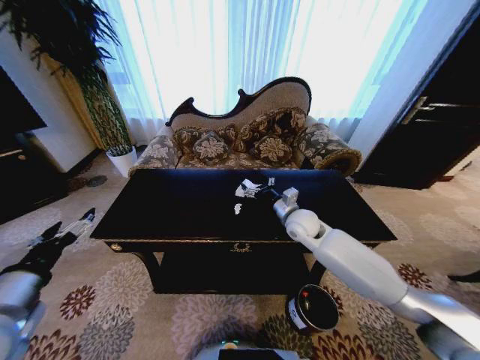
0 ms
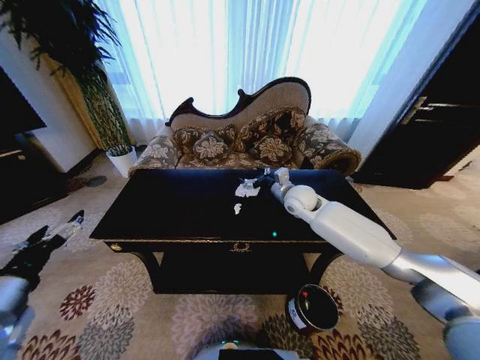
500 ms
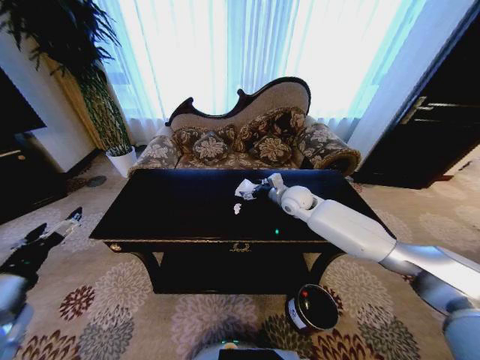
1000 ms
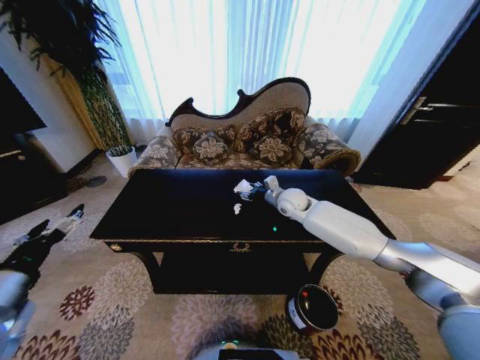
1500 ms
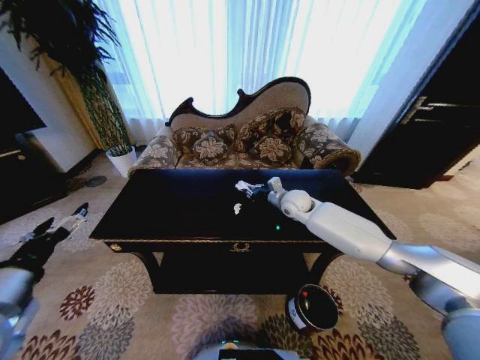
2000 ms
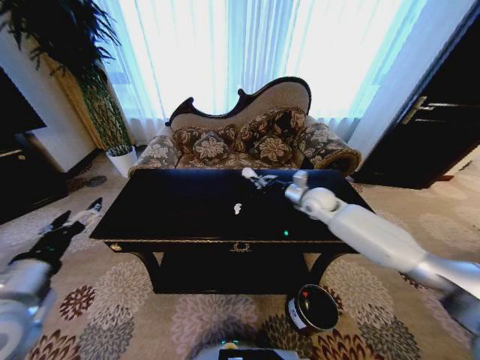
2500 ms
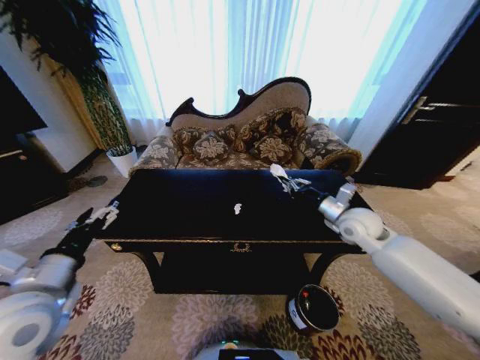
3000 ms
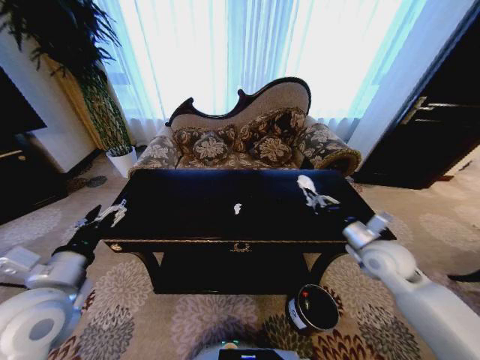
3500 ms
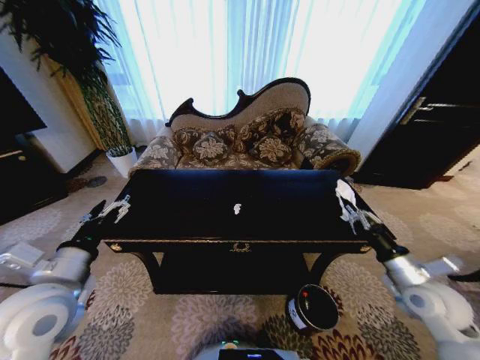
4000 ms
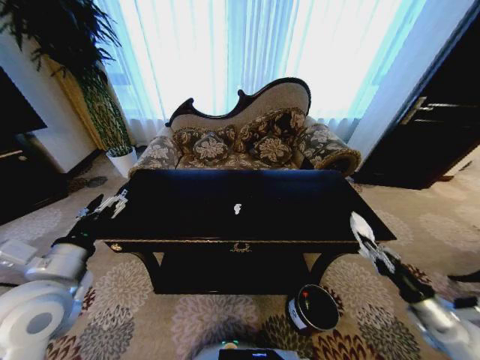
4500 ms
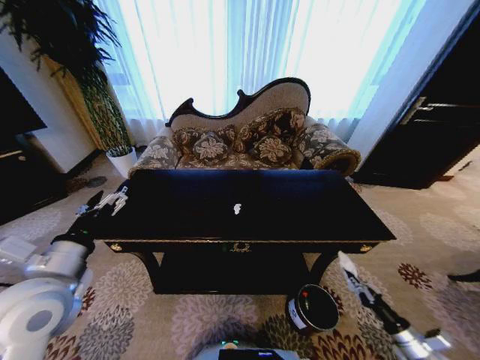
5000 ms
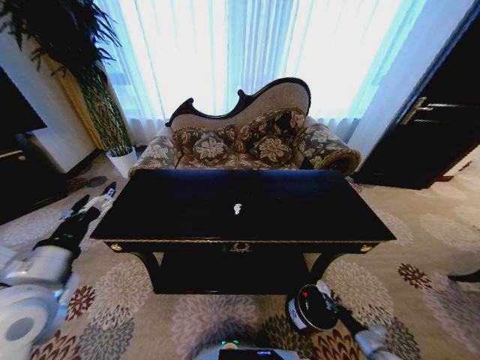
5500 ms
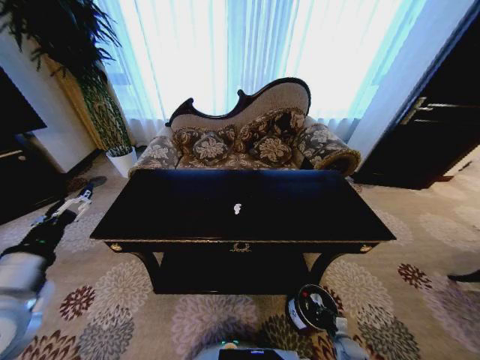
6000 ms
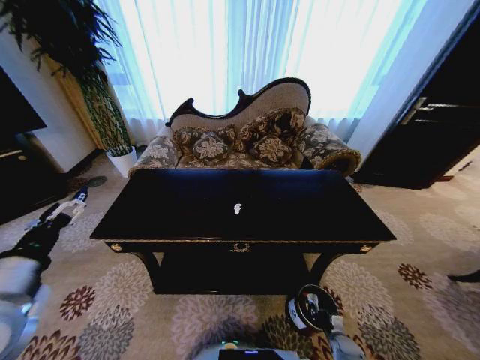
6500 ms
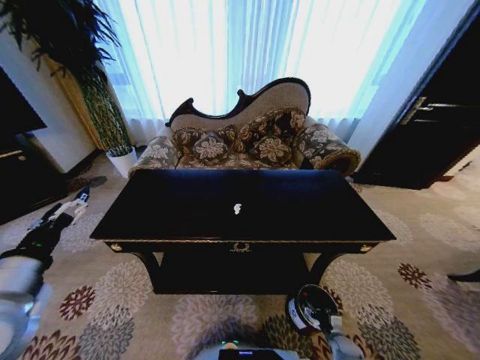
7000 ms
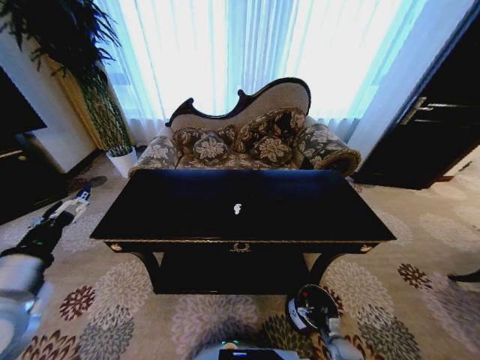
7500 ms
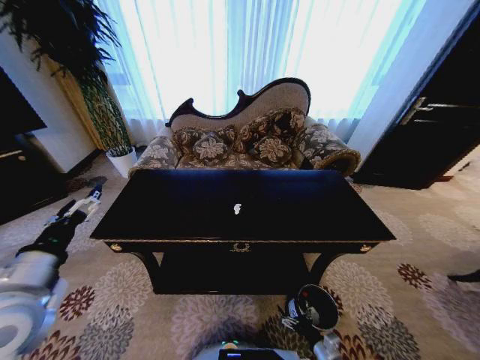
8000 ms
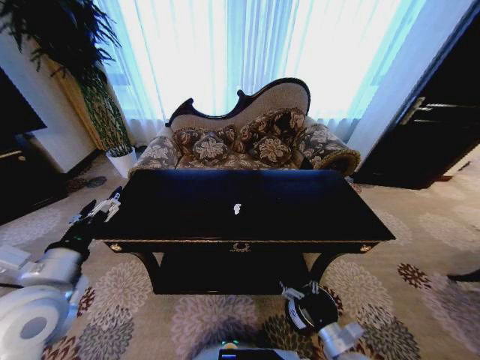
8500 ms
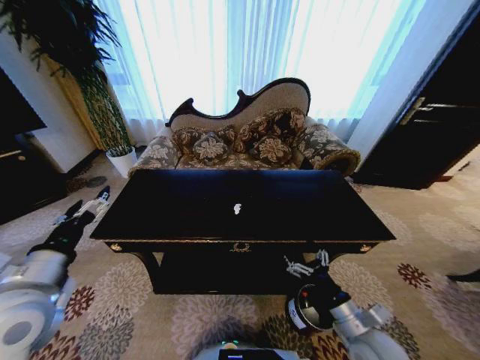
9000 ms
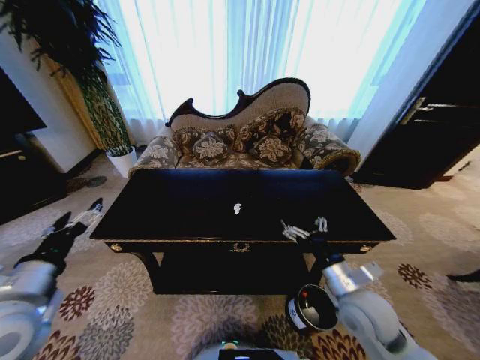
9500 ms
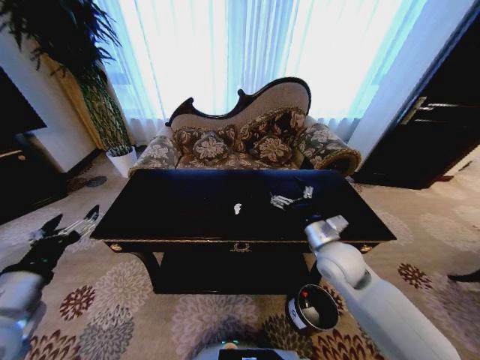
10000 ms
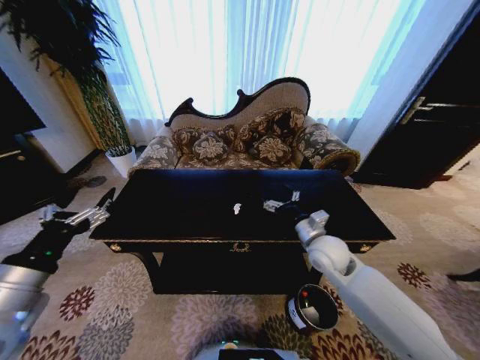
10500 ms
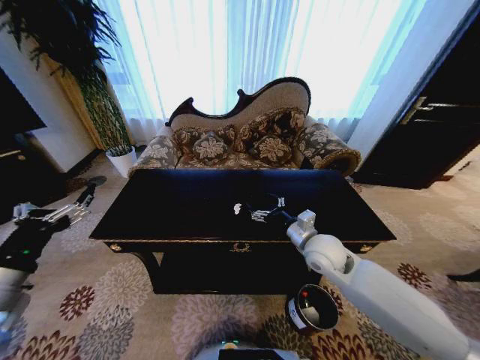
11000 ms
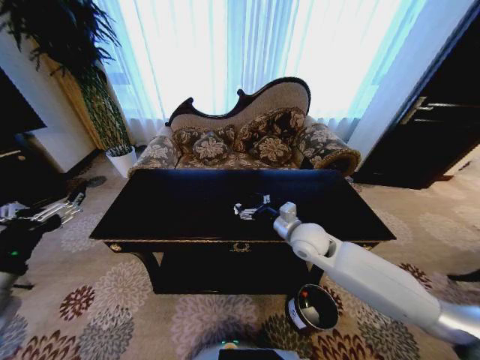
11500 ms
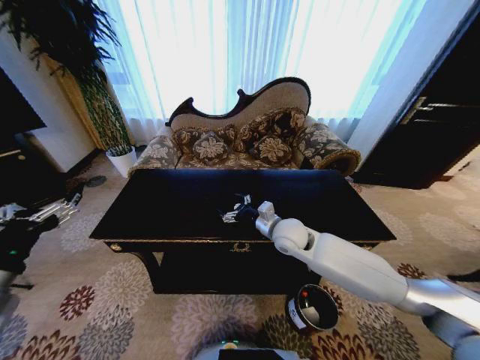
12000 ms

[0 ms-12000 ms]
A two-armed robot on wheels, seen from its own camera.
Task of the whole recording: Move to the front of the table and place the trash on the table into the trash bin.
0 ms to 2000 ms: The right gripper goes about 10 cm forward, and closes.
2000 ms to 4000 ms: The left gripper goes approximately 5 cm to the right. The right gripper travels backward and to the right by approximately 35 cm.
4000 ms to 6000 ms: The right gripper shifts roughly 40 cm downward; the left gripper shifts by about 5 cm.
6000 ms to 8000 ms: The right gripper moves to the left, upward and backward, approximately 15 cm, and opens up.
8000 ms to 10000 ms: The right gripper is displaced upward and forward by some 40 cm.
10000 ms to 12000 ms: The right gripper moves to the left and forward, about 15 cm.

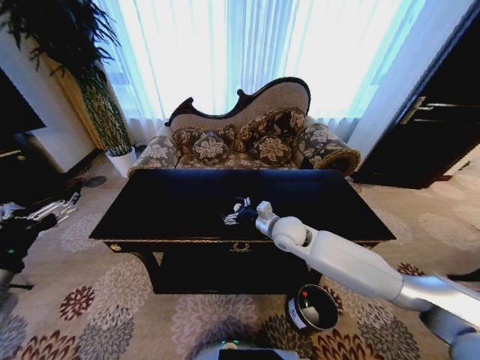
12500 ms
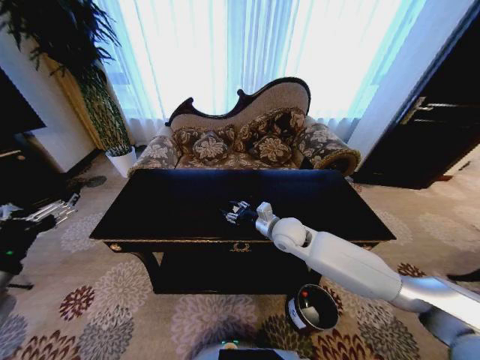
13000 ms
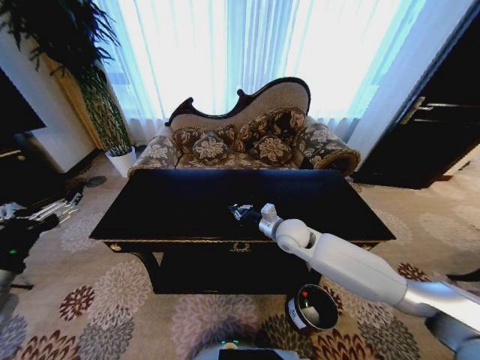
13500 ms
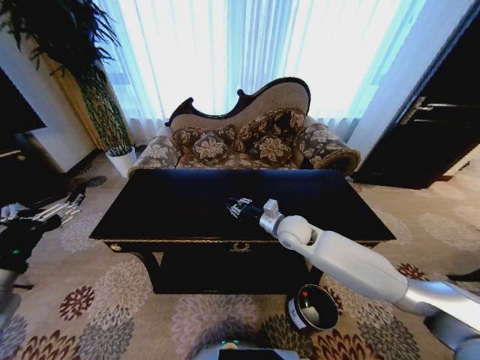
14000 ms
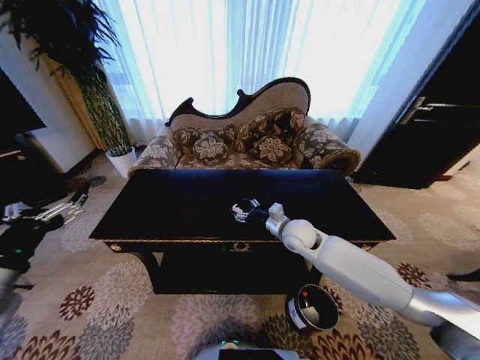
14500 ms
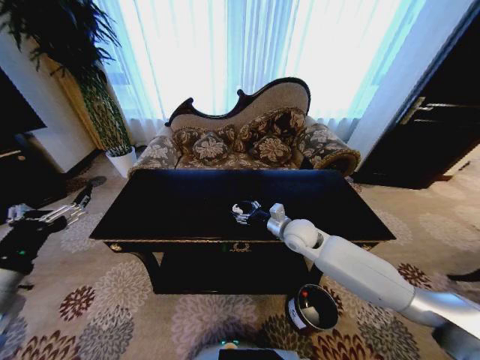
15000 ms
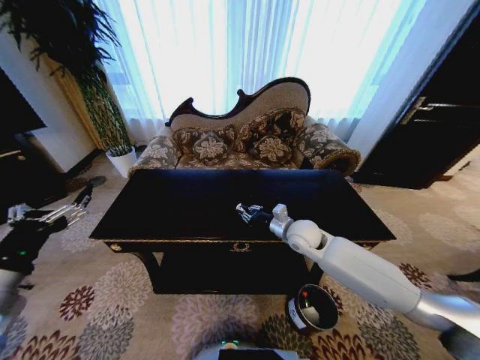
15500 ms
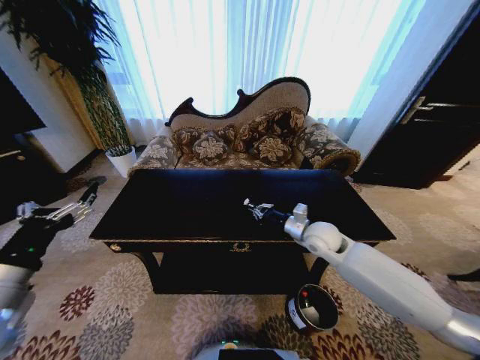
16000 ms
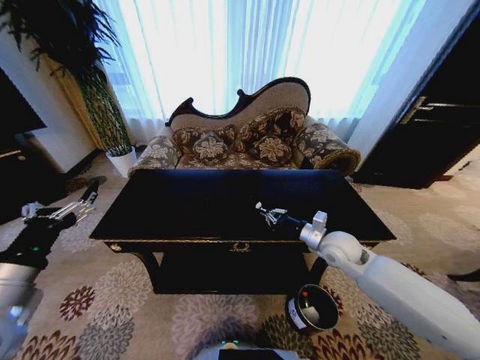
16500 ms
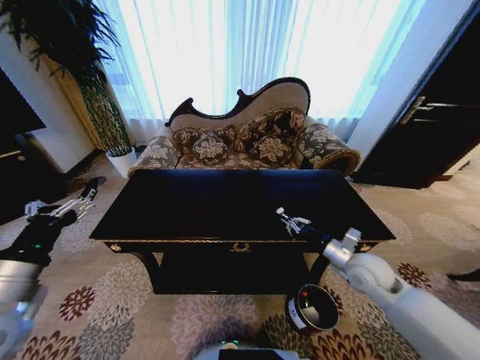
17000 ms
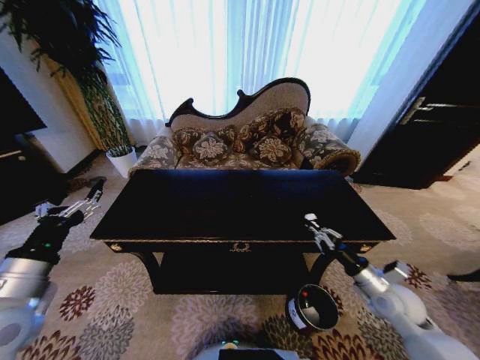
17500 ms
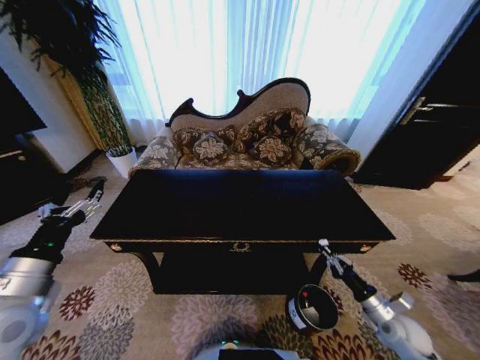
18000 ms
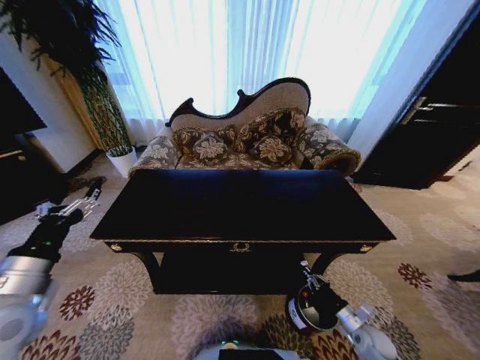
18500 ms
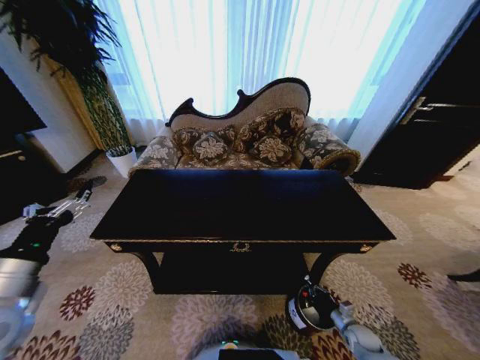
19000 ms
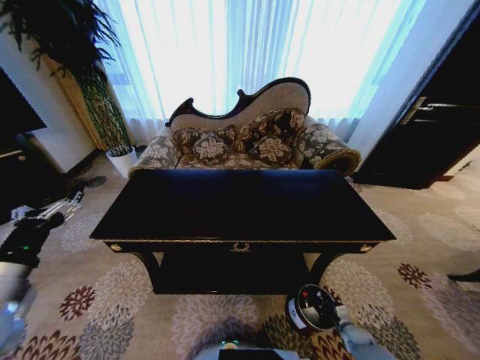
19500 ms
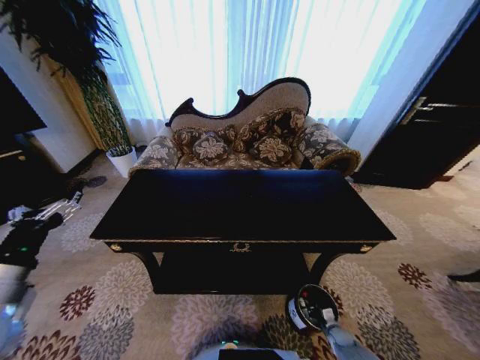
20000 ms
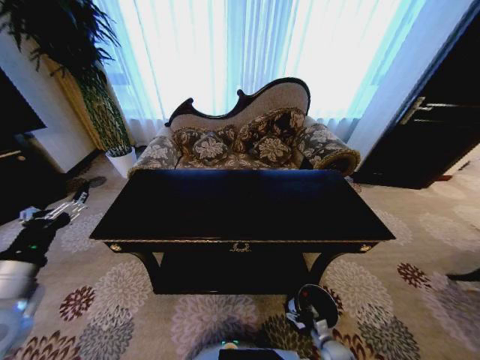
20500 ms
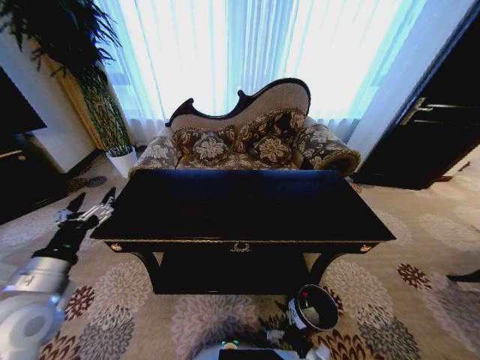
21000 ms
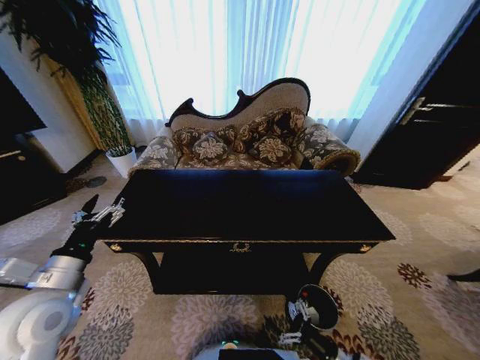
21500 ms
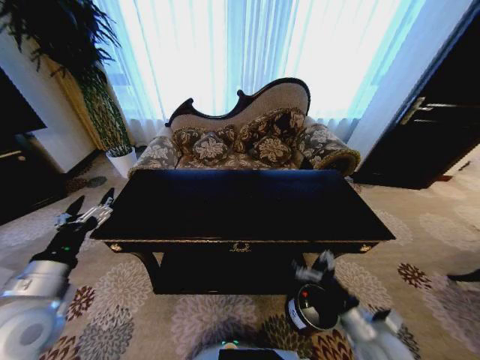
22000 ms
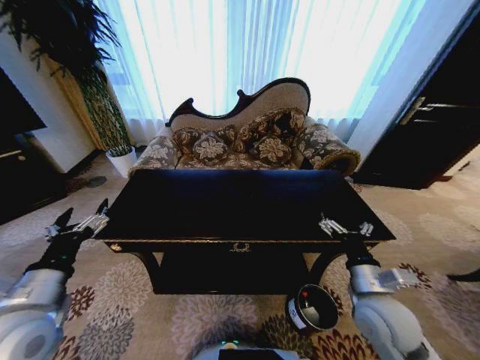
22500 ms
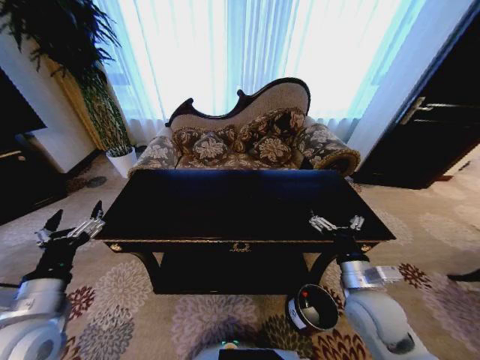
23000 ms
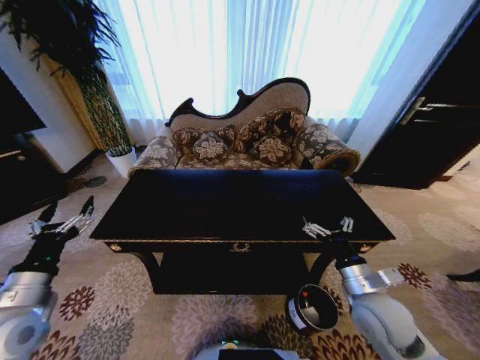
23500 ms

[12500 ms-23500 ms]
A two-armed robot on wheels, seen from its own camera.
Task of the whole recording: Move to the front of the table and place the trash on the table into the trash bin.
12500 ms to 14500 ms: The right gripper closes and opens again.
14500 ms to 16000 ms: The right gripper travels to the right by some 5 cm, and closes up.
16000 ms to 18000 ms: The right gripper is displaced to the right, backward and downward by about 30 cm.
18000 ms to 20000 ms: The right gripper moves downward, roughly 25 cm.
20000 ms to 21500 ms: The left gripper changes place by about 5 cm. The right gripper is displaced upward, backward and to the left by roughly 25 cm, and opens its fingers.
21500 ms to 23500 ms: The right gripper shifts about 25 cm upward and forward. Meanwhile the left gripper changes place by about 5 cm.

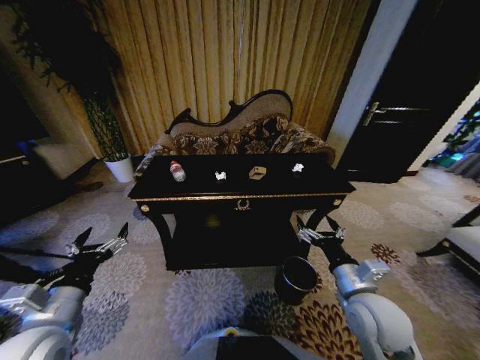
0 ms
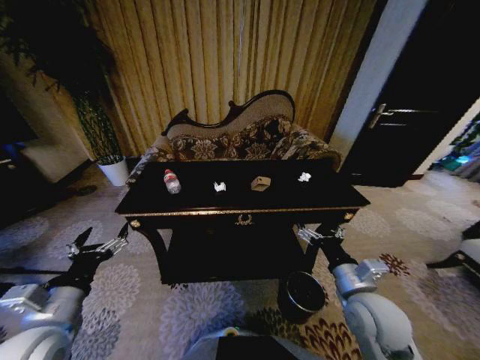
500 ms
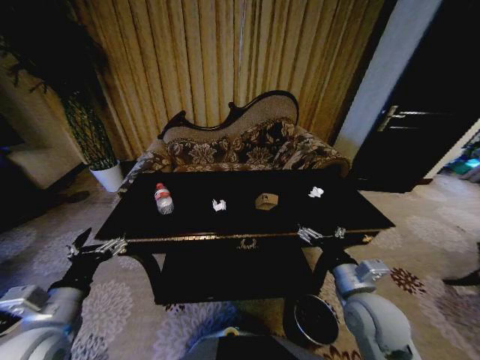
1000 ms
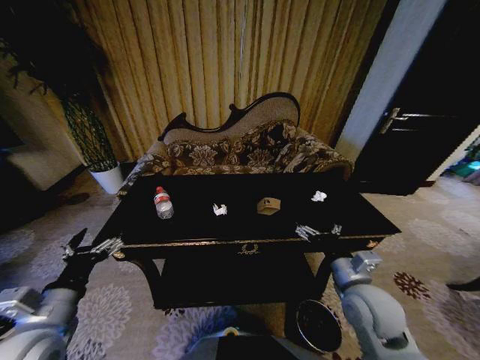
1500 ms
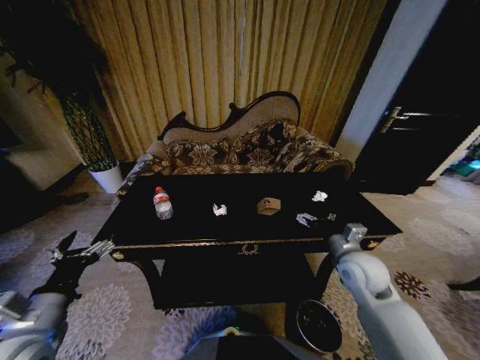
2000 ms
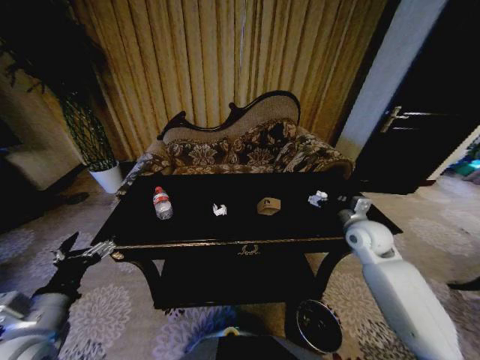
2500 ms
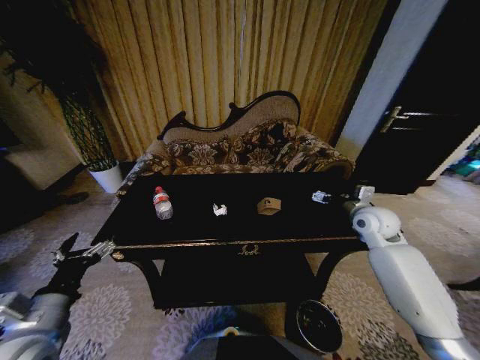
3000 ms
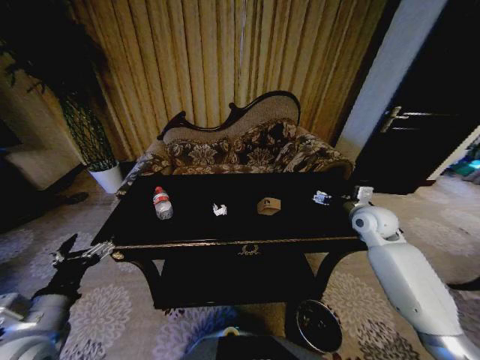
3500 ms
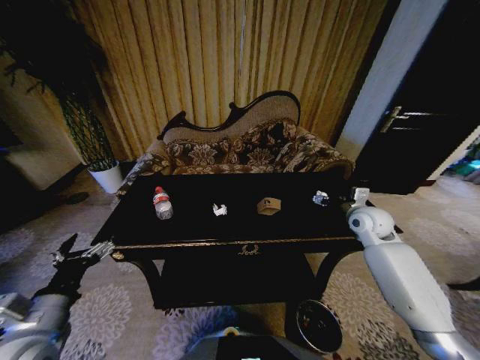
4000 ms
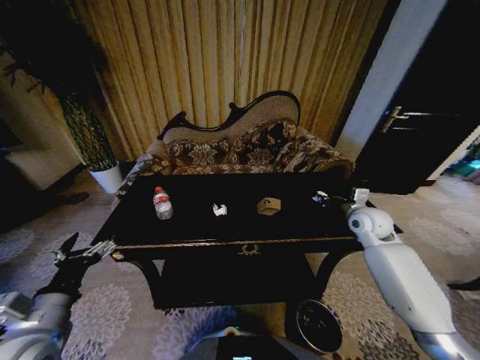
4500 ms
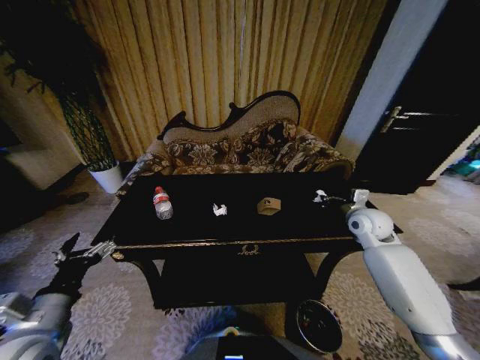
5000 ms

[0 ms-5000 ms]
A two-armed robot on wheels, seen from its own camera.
Task of the whole recording: Move to the front of the table and place the trash on the table into the trash bin.
0 ms to 2500 ms: The right gripper is displaced forward and to the right by roughly 20 cm.
2500 ms to 5000 ms: The right gripper closes up.
